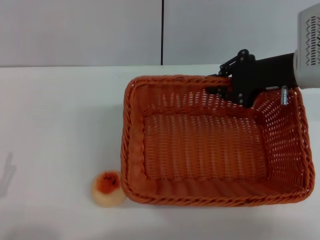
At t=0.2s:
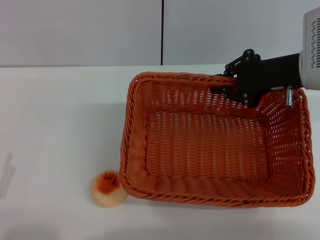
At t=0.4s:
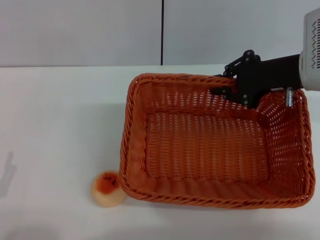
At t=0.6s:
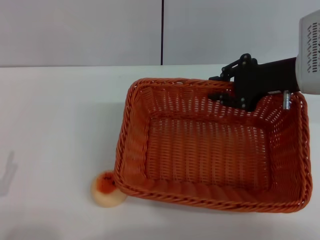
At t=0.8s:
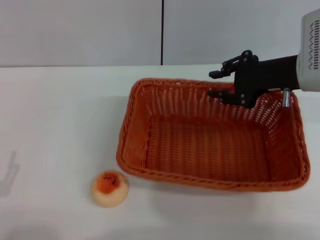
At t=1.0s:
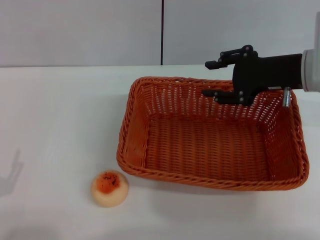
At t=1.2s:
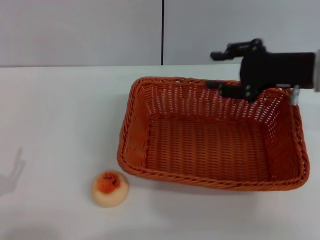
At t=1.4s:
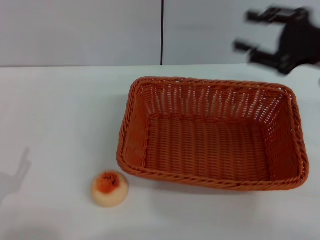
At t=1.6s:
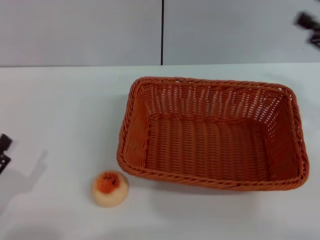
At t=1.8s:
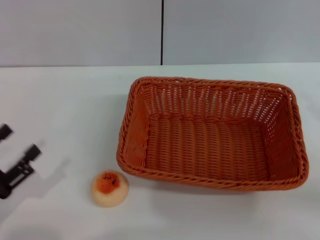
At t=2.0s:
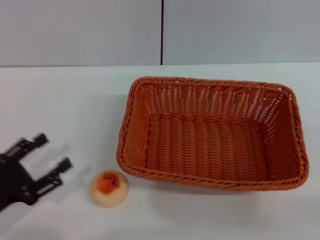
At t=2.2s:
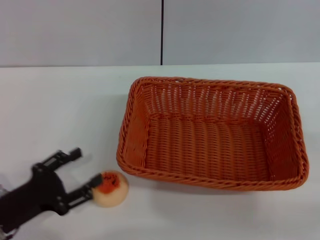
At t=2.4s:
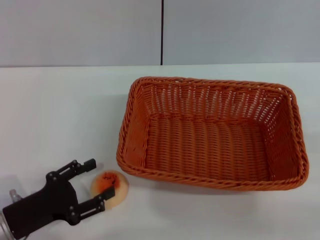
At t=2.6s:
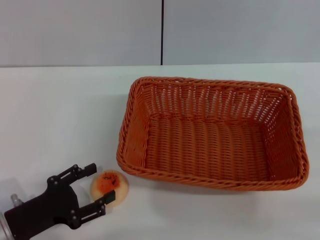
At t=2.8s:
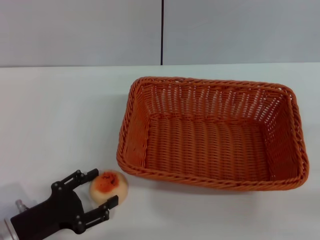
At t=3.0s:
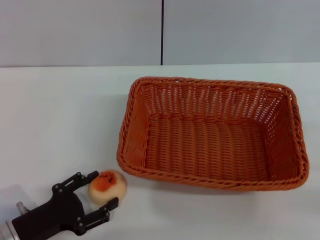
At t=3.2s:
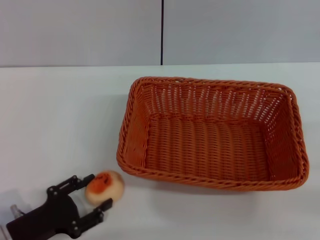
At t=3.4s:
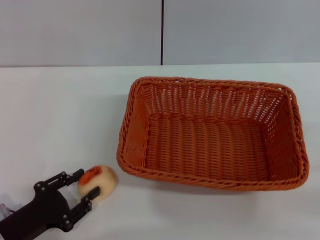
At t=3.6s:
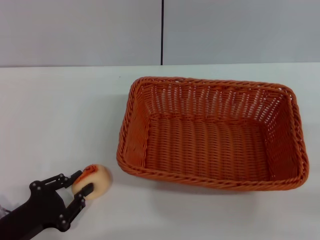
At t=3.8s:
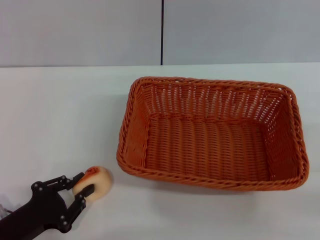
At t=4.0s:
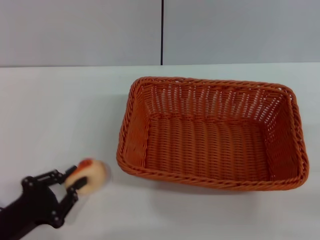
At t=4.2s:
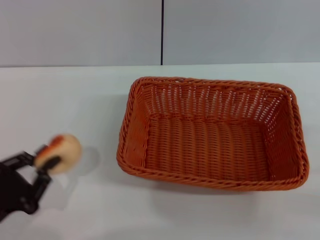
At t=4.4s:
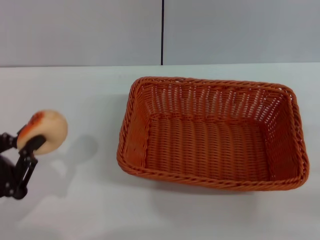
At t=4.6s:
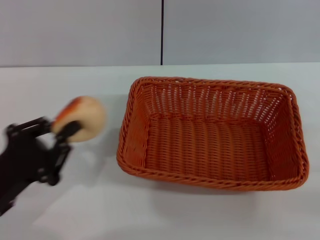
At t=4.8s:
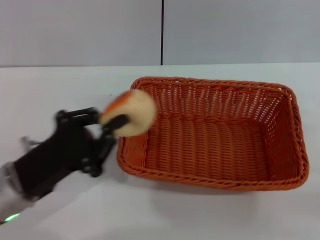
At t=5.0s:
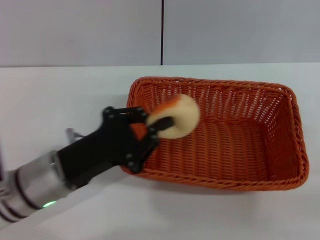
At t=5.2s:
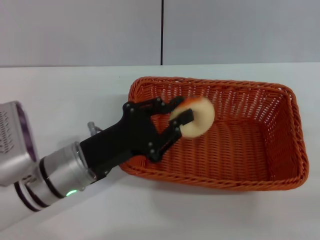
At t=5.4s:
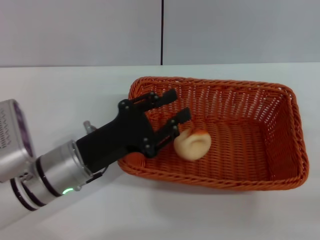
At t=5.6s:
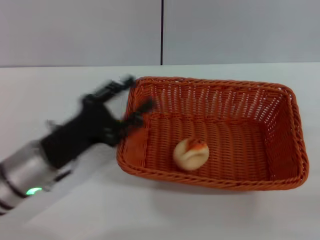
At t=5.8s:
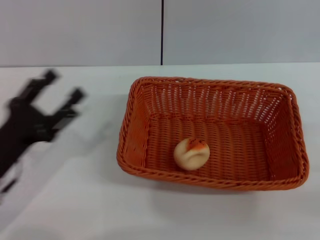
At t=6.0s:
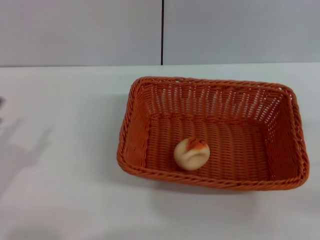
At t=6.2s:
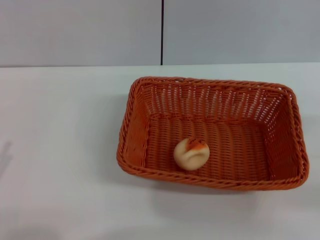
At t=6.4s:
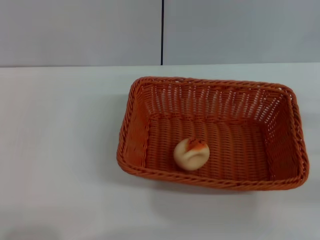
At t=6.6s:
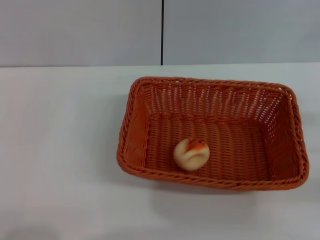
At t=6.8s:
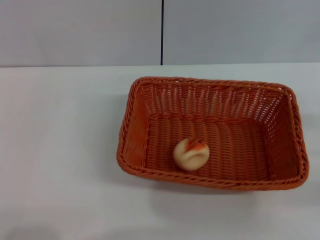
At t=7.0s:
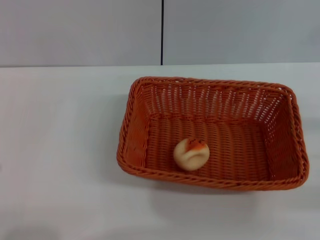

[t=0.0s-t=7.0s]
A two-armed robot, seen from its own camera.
Step, t=1.4s to t=4.2s: Pick up the egg yolk pastry with the left gripper.
Step, t=4.6s to t=5.6s: Place the egg yolk pastry into the basket with the left gripper.
t=0.0s to t=1.4s: The right gripper goes approximately 10 cm to the right and backward, and opens up.
t=1.4s to t=2.8s: The left gripper travels forward by approximately 5 cm; the right gripper heads to the right, backward and downward, covering roughly 20 cm.
t=2.8s to t=4.2s: The left gripper changes place by some 5 cm, and closes its fingers.
t=4.2s to t=5.6s: The left gripper heads forward and to the right, covering roughly 15 cm, and opens.
t=5.6s to t=7.0s: The left gripper goes approximately 20 cm backward and to the left, and opens.
